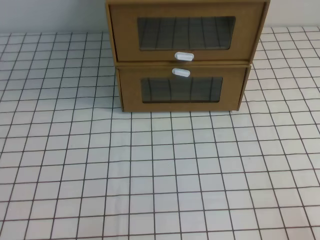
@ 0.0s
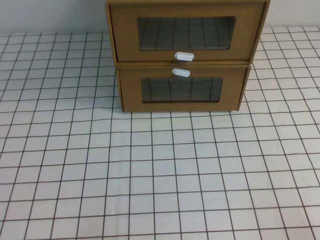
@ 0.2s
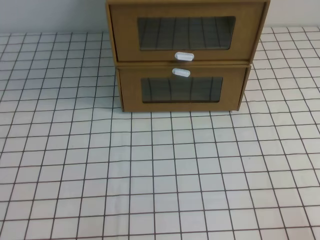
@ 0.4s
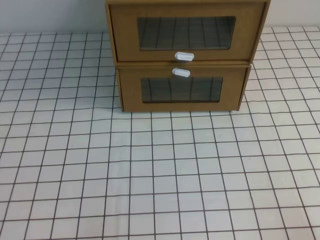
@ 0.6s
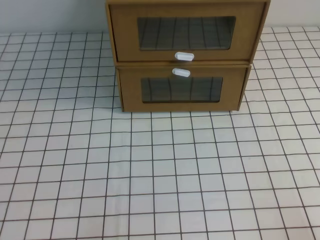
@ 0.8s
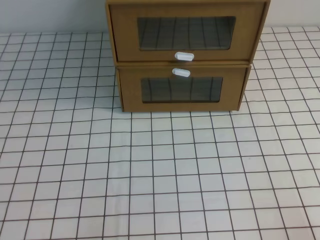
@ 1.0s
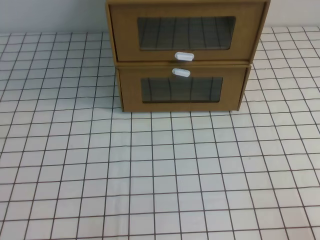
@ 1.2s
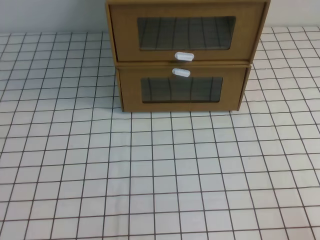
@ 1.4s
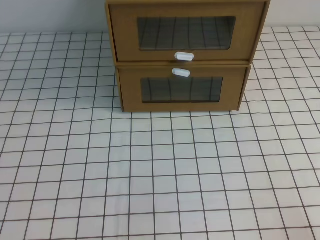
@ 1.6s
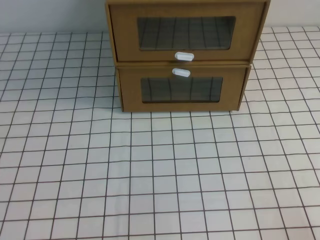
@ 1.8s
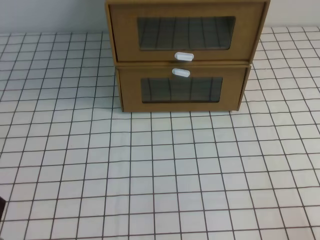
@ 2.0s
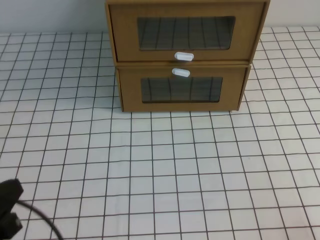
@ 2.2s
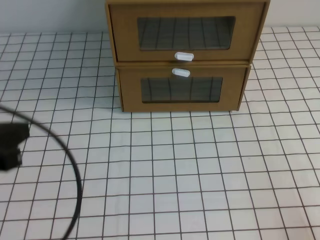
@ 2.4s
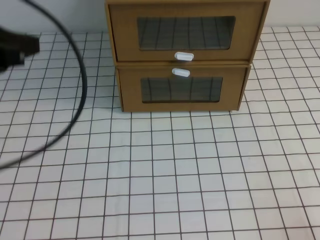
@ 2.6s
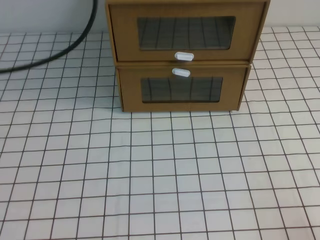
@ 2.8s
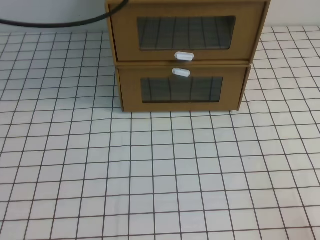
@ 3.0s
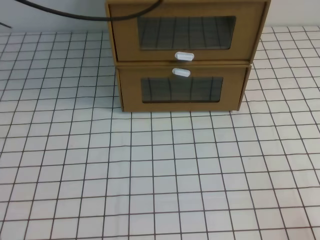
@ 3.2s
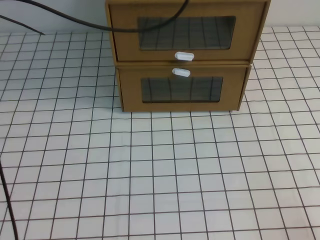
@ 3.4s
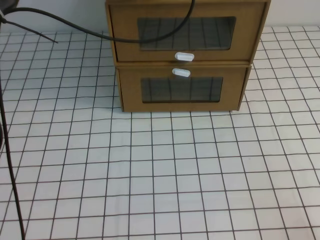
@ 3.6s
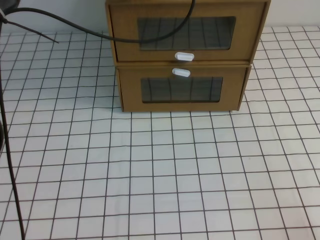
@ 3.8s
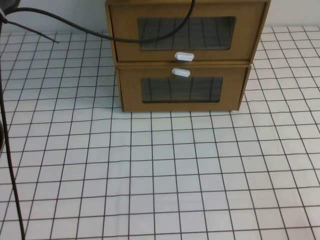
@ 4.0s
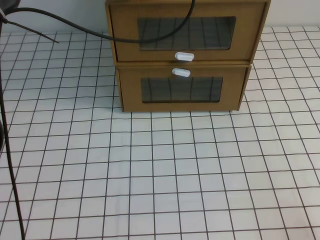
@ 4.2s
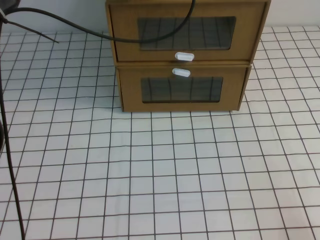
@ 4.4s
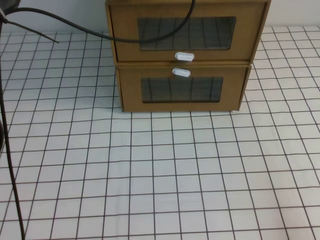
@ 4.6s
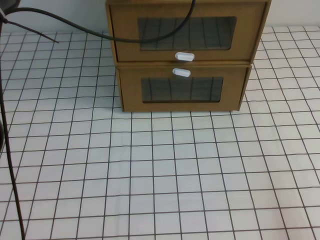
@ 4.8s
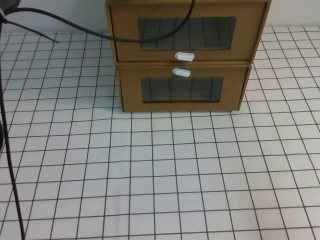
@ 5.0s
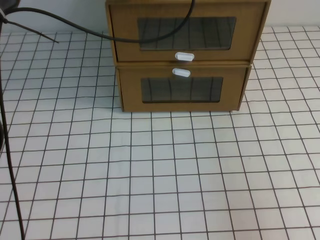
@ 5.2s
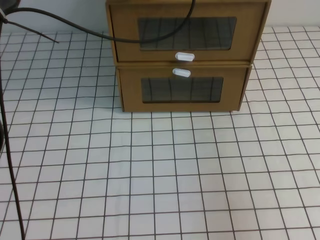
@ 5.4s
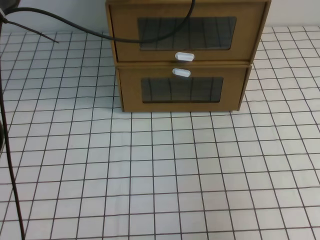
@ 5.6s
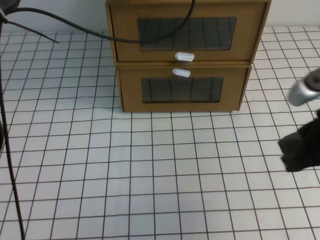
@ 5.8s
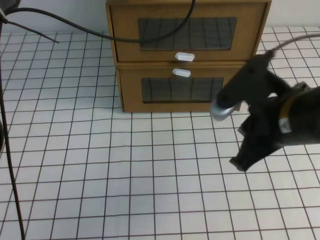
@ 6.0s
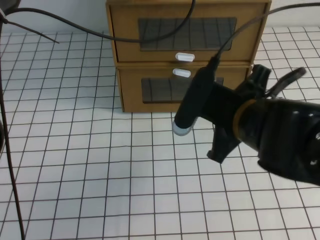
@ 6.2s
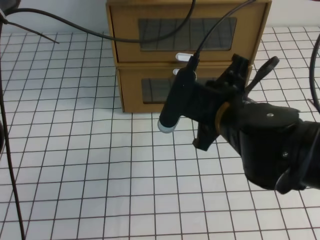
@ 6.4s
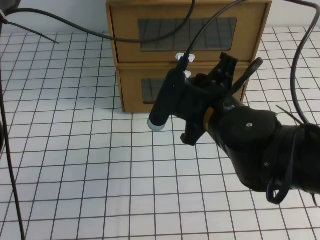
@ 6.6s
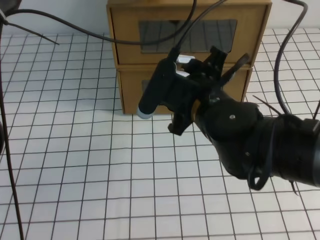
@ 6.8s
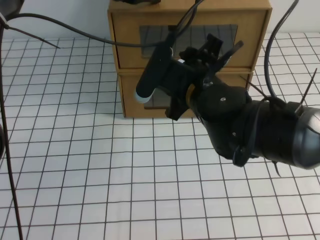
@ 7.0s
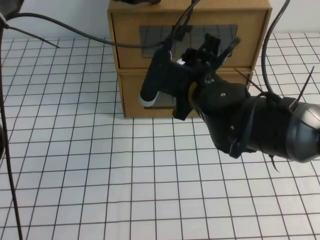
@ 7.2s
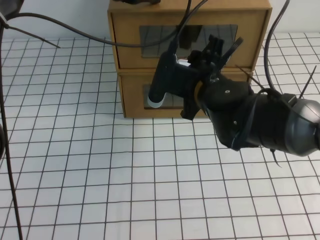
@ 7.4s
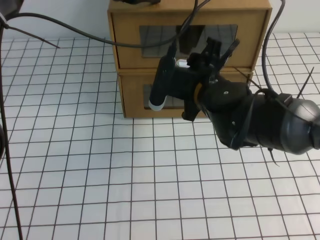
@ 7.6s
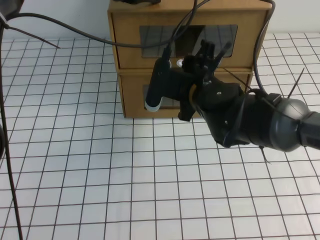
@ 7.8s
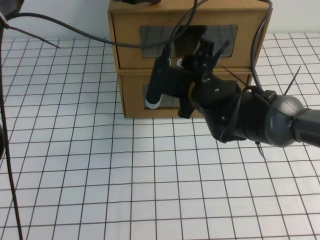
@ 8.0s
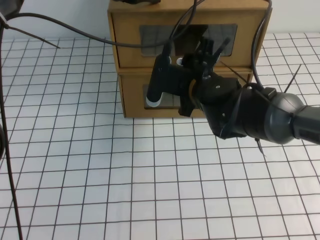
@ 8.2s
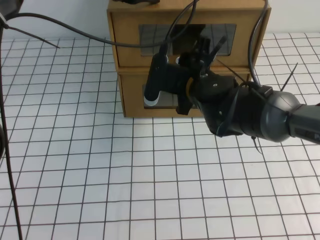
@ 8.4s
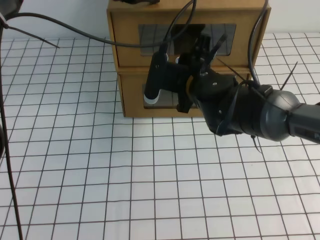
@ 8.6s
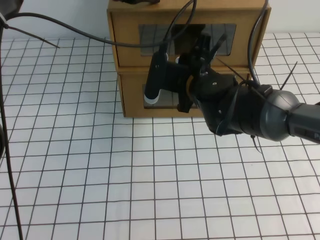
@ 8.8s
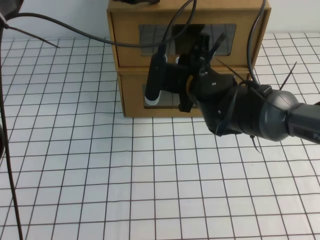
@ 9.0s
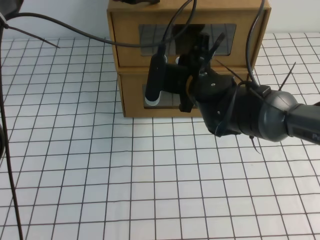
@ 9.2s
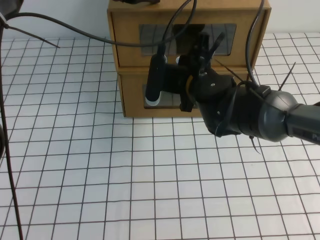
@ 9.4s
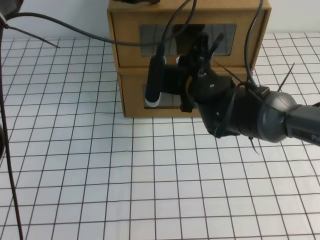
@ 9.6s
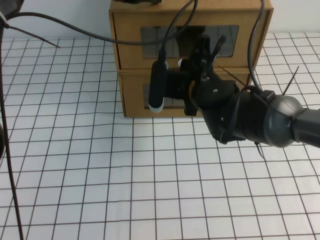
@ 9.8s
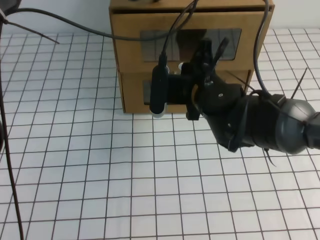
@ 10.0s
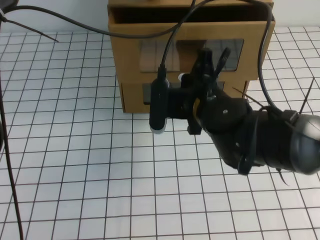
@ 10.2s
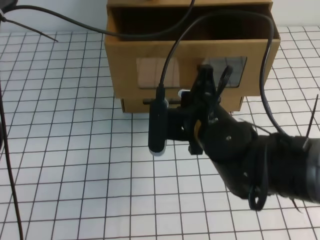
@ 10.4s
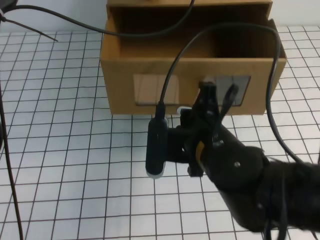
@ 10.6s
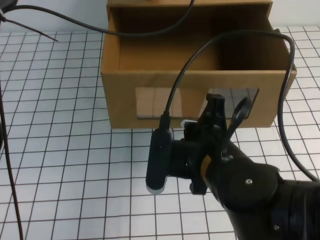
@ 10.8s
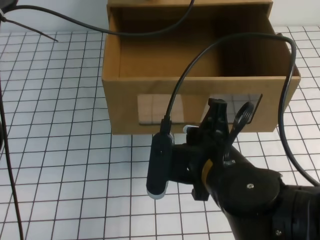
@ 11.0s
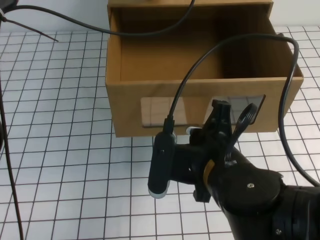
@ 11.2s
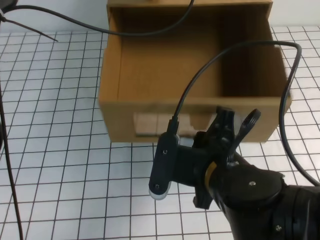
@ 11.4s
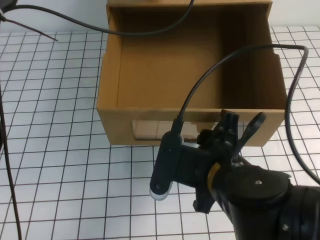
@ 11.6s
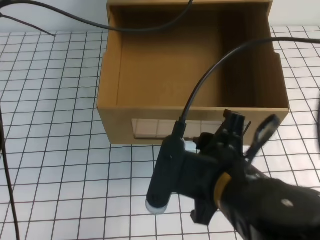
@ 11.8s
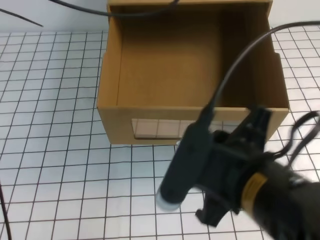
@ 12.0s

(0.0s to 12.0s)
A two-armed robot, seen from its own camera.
Task of the whole recording: open the shoebox on the white tablecloth.
1.6s - 3.0s: The left gripper travels upward and forward by approximately 35 cm.
3.0s - 4.4s: The left gripper shifts approximately 20 cm forward, to the right and downward.
4.4s - 6.0s: The right gripper moves forward, upward and to the left, approximately 20 cm.
6.0s - 7.6s: The right gripper travels to the left and forward by roughly 20 cm, and opens its fingers.
7.6s - 9.0s: The right gripper closes up.
9.0s - 10.4s: The right gripper moves backward, roughly 5 cm, and closes up.
10.4s - 12.0s: The right gripper travels backward by about 15 cm, and opens.

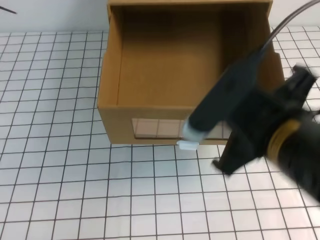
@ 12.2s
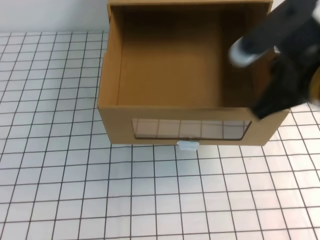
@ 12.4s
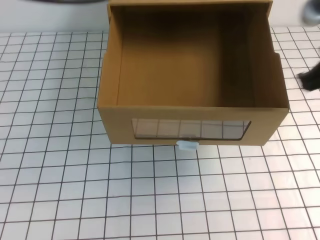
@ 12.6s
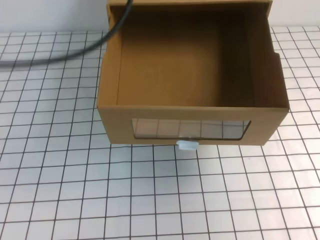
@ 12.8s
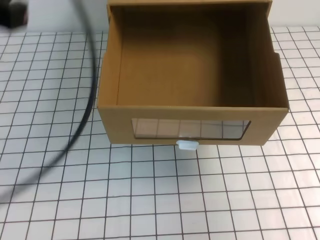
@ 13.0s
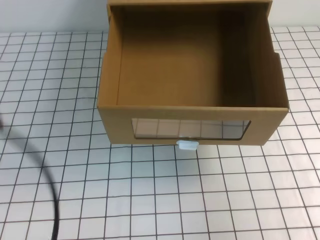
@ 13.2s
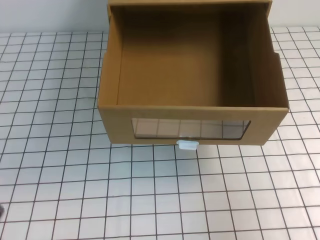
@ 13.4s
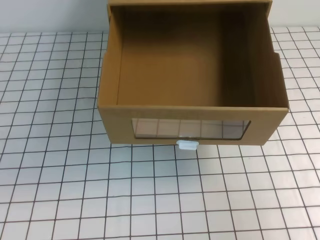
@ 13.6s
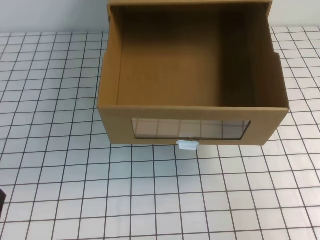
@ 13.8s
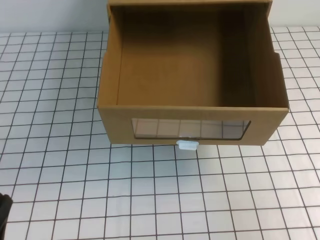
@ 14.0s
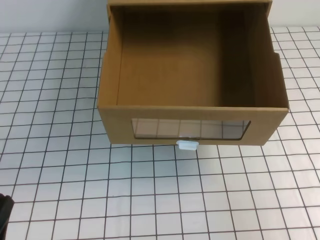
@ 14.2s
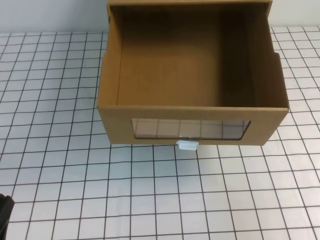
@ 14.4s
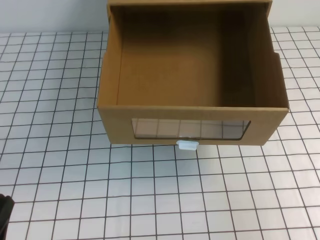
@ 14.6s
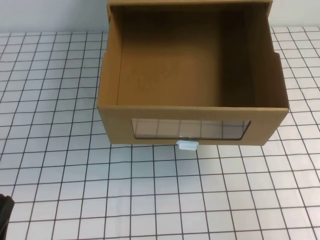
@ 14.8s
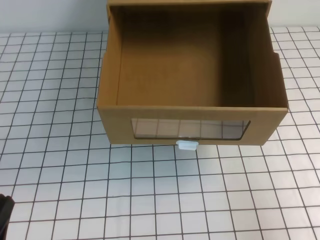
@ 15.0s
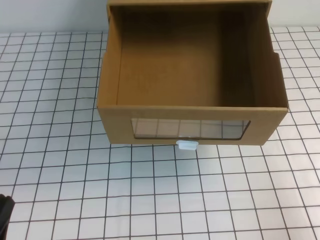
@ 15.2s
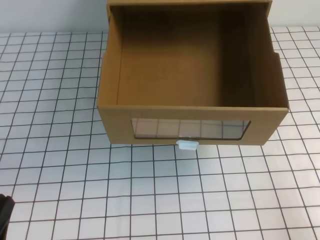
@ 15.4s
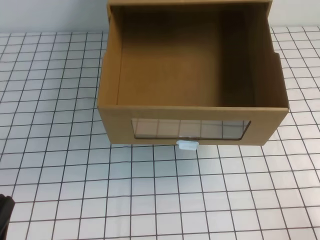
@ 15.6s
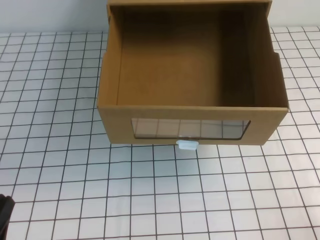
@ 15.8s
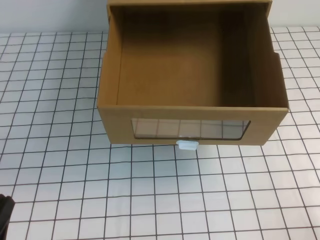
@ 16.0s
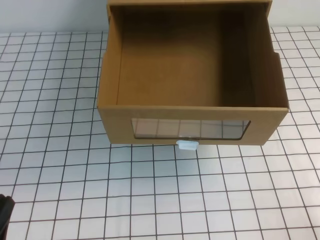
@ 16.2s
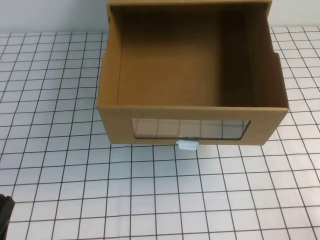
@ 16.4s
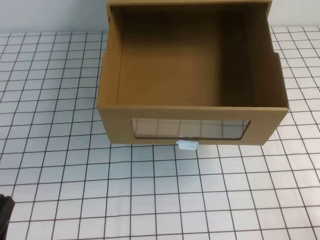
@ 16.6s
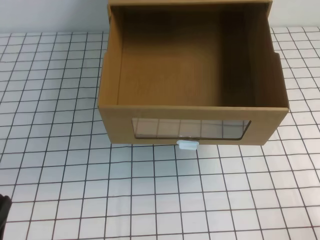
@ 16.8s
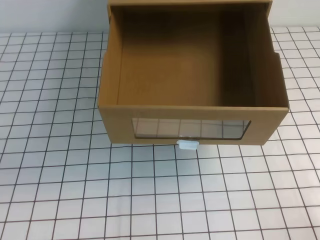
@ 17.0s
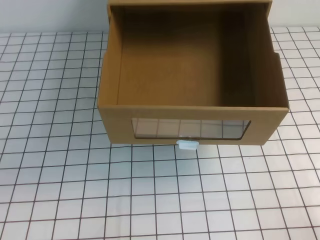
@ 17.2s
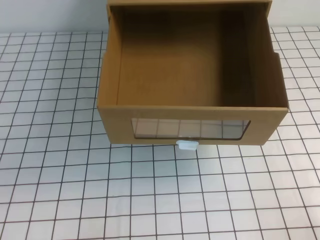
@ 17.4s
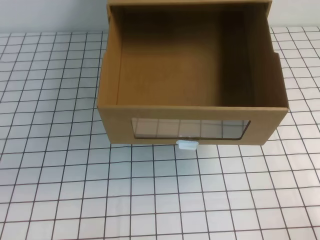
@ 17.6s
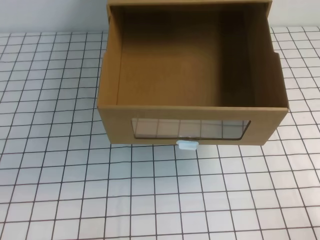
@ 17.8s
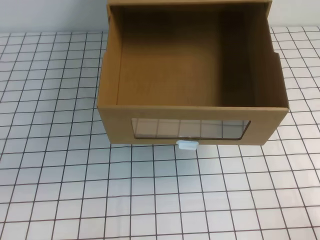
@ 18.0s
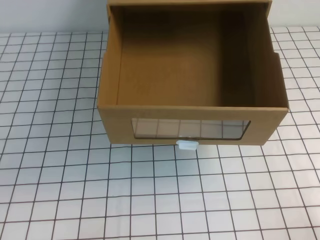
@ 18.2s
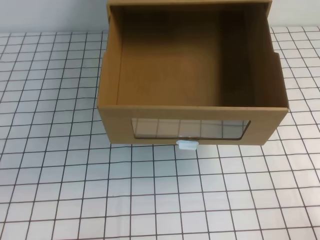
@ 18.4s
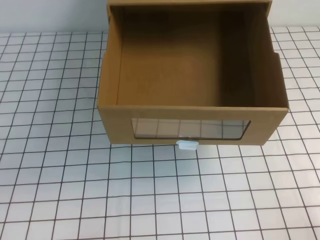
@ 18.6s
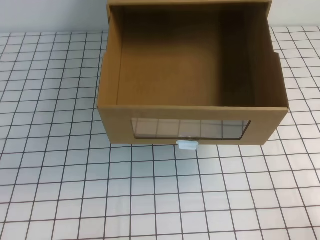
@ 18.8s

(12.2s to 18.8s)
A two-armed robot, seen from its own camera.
Task of the whole recording: open the shoebox on the white tablecloth.
Step, 12.2s - 18.8s: Open the shoe box.
12.2s - 13.8s: The right gripper shifts about 20 cm to the right, while the left gripper is displaced backward, downward and to the left by roughly 40 cm.
13.8s - 15.4s: The right gripper shifts approximately 5 cm downward.

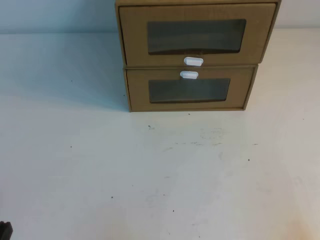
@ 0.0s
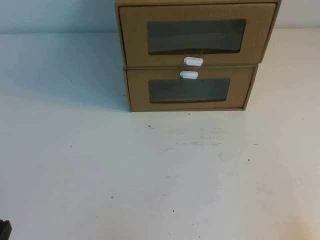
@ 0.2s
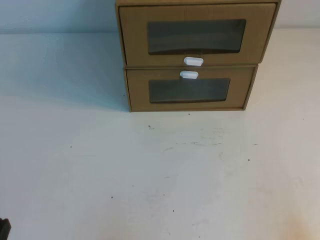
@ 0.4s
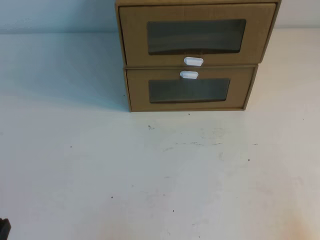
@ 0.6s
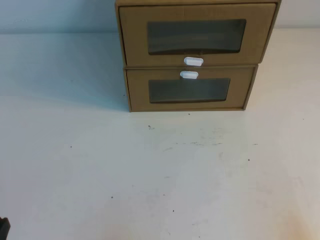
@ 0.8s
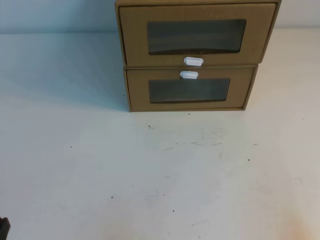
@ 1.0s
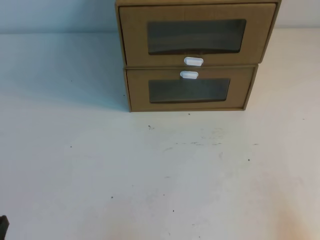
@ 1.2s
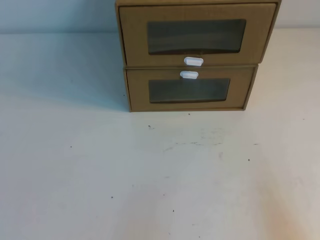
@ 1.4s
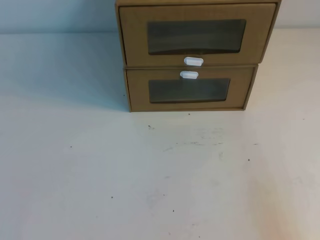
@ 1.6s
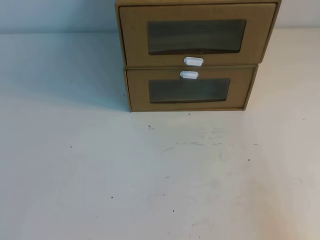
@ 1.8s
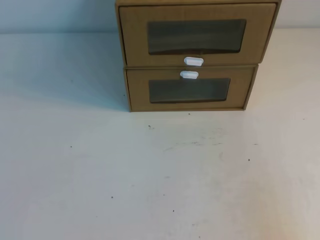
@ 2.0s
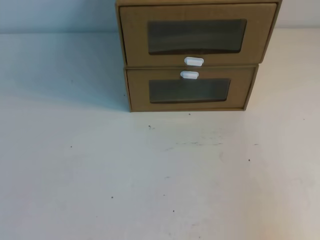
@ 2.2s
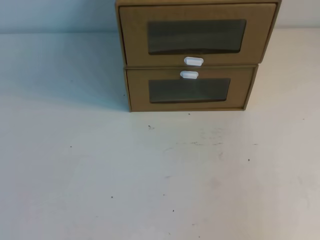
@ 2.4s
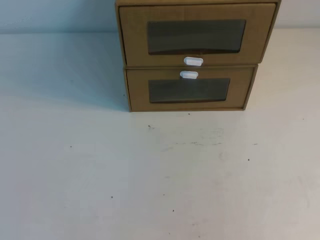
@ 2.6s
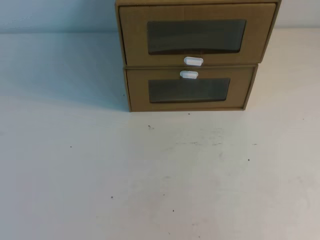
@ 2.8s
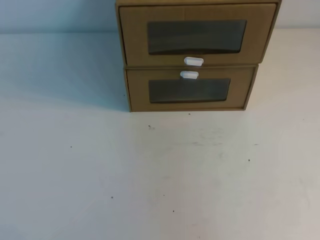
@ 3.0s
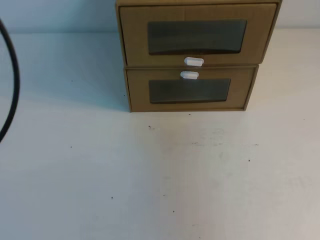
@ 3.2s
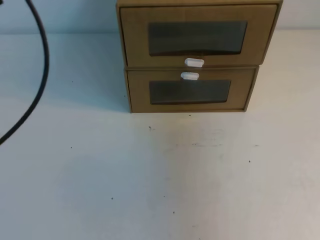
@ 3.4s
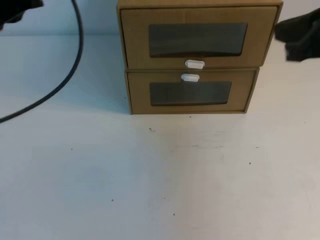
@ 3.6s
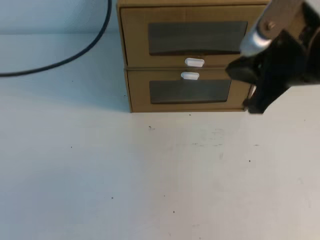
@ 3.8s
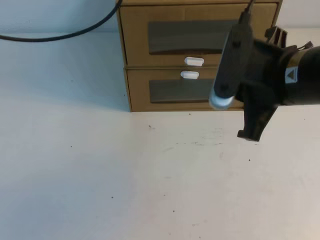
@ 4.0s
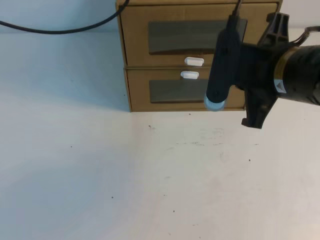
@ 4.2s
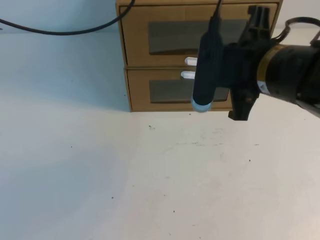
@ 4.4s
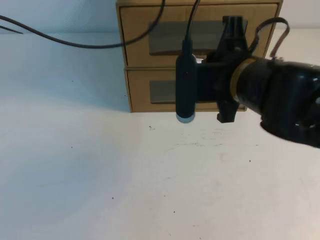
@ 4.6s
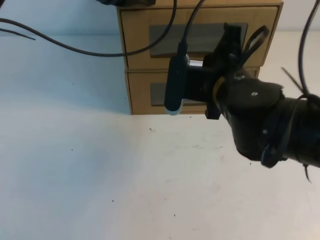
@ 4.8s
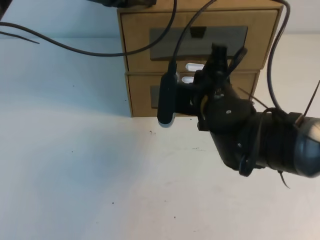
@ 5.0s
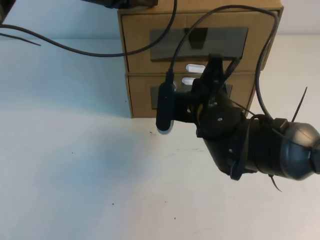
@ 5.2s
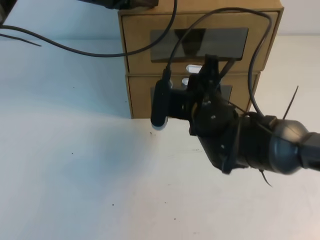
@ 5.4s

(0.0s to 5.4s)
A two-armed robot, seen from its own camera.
Task of the whole recording: open the shoebox on the table.
1.4s - 2.8s: The right gripper moves upward, roughly 30 cm.
2.8s - 4.0s: The right gripper is displaced forward, to the left and downward by about 30 cm. Meanwhile the left gripper shifts some 35 cm forward.
4.0s - 5.4s: The right gripper goes some 15 cm downward, to the left and forward; the left gripper heads to the right, forward and downward, covering approximately 10 cm.
